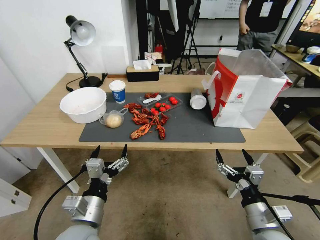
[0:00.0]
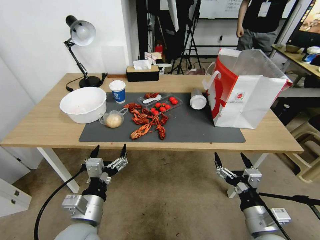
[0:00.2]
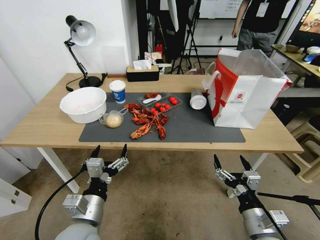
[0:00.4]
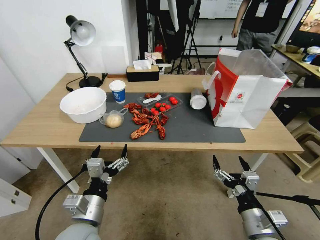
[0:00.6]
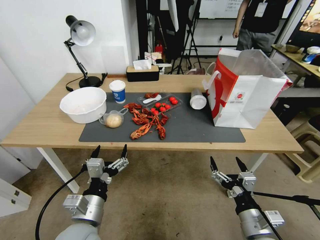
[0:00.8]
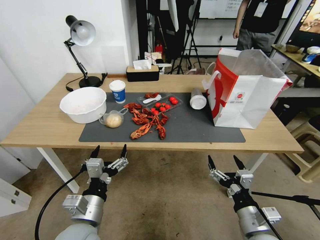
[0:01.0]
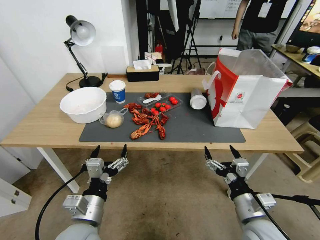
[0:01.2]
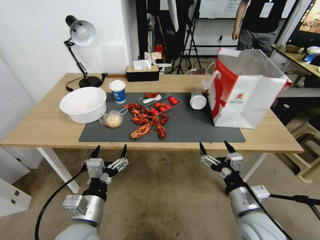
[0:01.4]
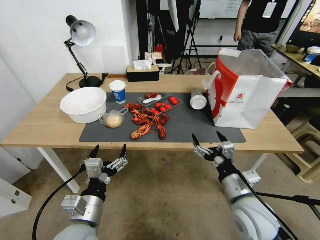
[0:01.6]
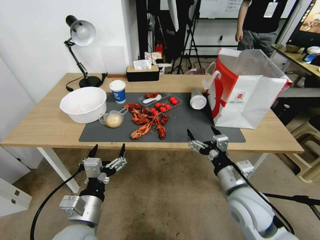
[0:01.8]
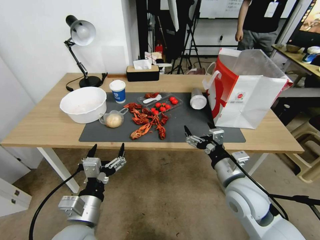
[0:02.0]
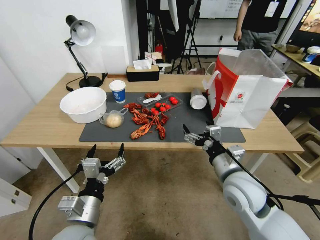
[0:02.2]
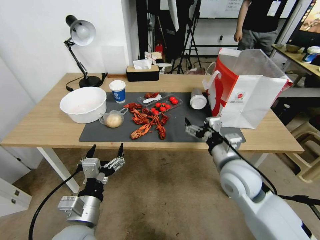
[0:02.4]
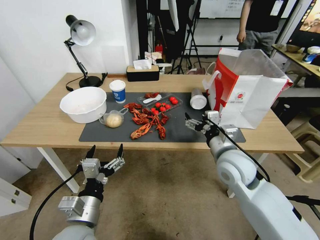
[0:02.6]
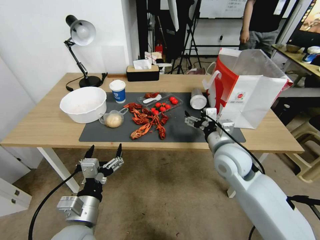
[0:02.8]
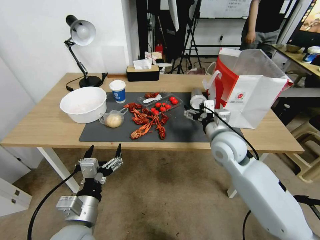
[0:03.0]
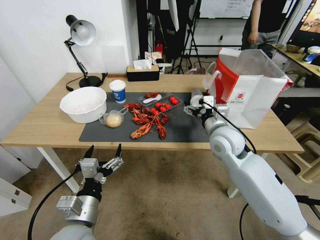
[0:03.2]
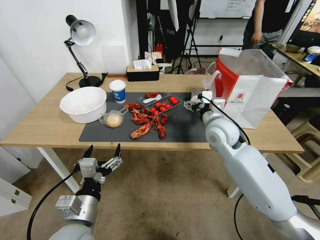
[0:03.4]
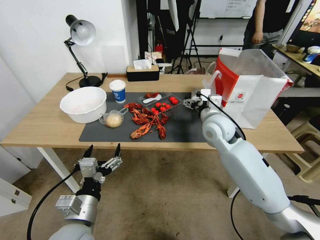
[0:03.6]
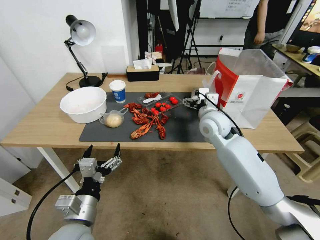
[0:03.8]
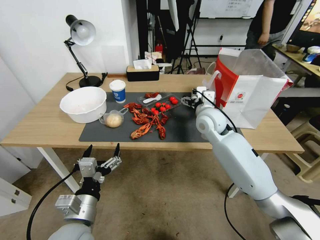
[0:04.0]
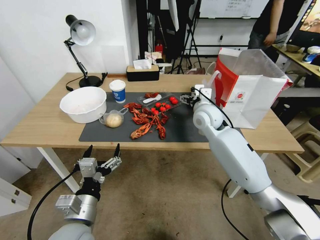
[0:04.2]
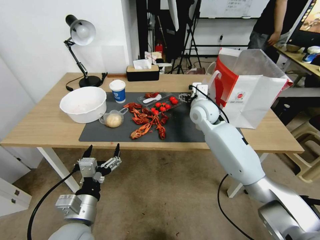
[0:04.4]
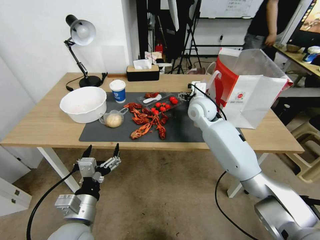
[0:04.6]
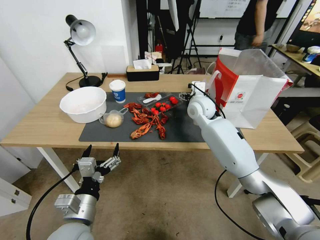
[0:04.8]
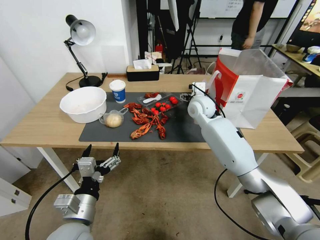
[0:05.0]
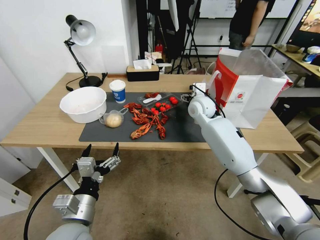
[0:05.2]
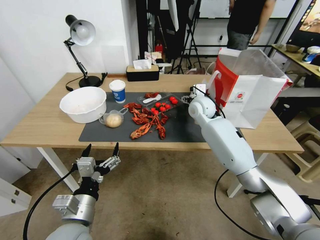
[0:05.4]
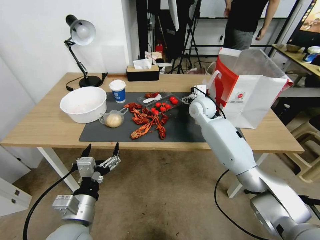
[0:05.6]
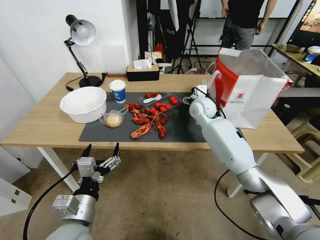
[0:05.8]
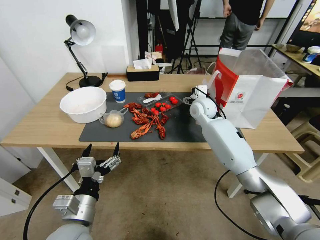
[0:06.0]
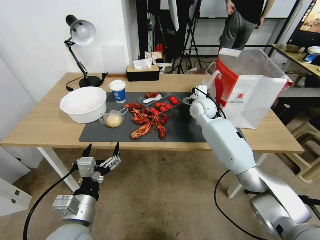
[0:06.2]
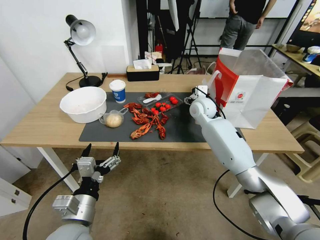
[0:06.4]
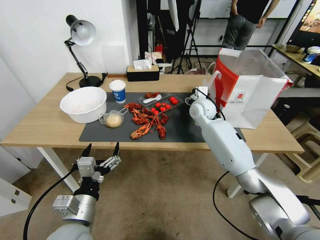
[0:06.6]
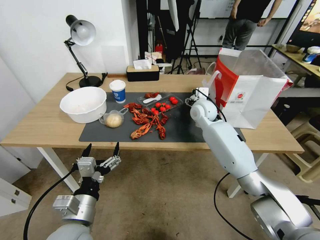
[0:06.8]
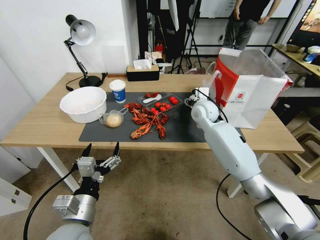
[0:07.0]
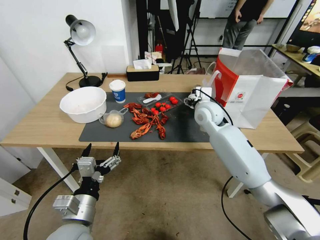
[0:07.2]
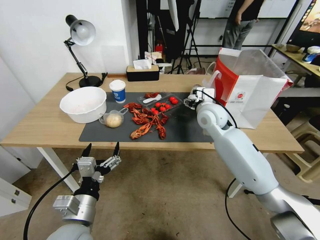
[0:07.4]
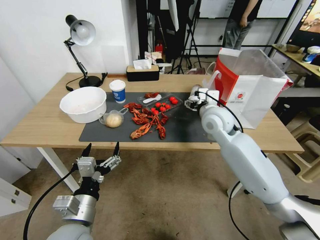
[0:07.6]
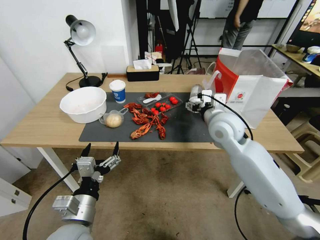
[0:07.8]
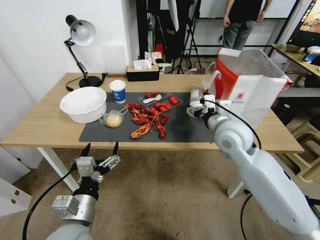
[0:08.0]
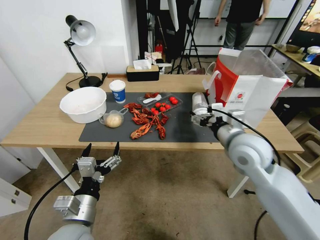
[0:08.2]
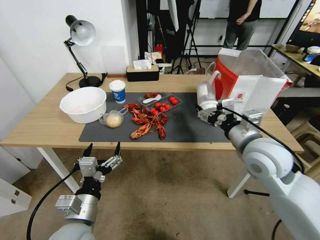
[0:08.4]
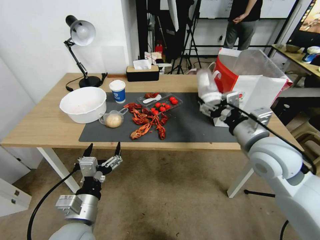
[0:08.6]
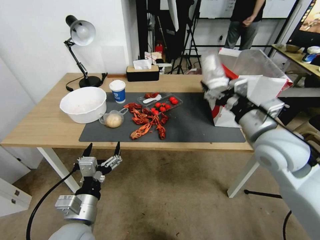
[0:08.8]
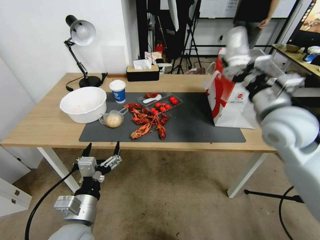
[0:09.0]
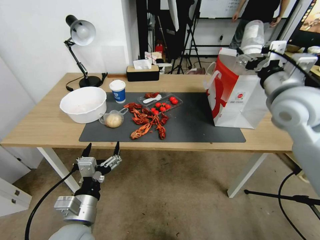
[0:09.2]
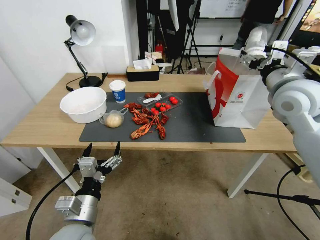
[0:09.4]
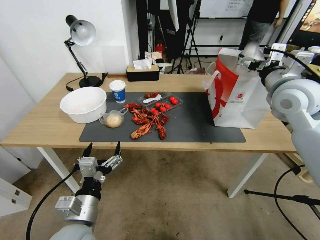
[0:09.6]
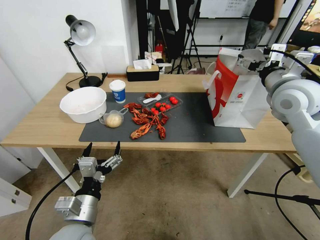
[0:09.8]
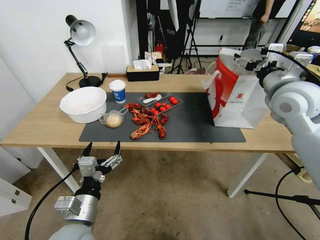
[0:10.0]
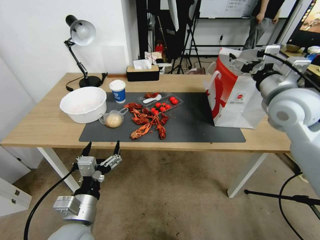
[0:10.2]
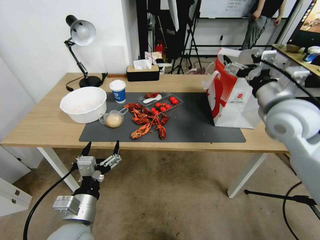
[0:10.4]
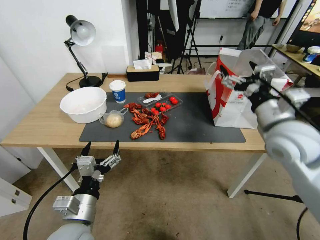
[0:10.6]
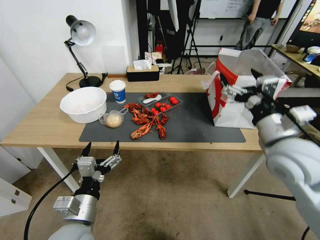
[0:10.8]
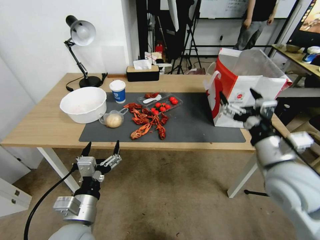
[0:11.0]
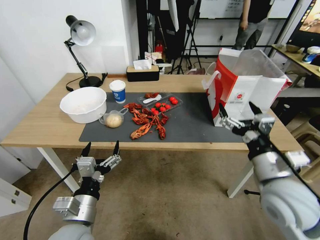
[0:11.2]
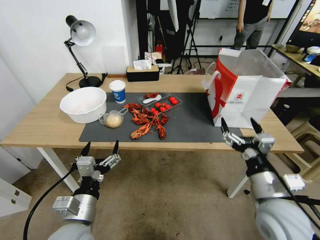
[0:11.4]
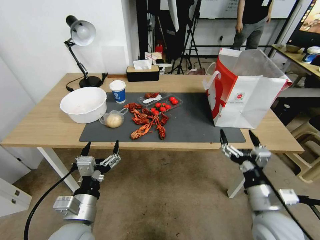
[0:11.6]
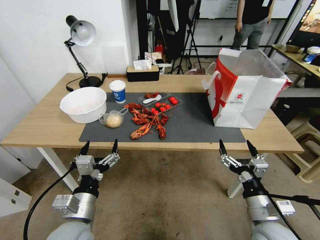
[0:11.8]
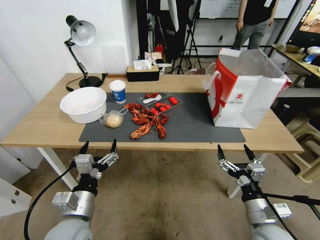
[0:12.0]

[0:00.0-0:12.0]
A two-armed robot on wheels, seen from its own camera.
0:00.0 to 0:01.6: The right gripper changes place by roughly 5 cm.
0:01.6 to 0:03.0: The right gripper shifts about 20 cm forward and upward.
0:03.0 to 0:04.4: The right gripper goes about 15 cm forward.
0:04.4 to 0:06.0: The right gripper shifts by roughly 5 cm.
0:06.0 to 0:07.6: The right gripper shifts about 10 cm backward.
0:07.6 to 0:09.0: The right gripper heads backward, to the right and upward, covering some 15 cm.
0:10.4 to 0:12.0: The right gripper travels downward and backward by some 30 cm.

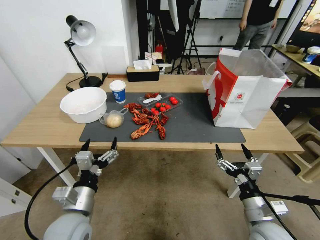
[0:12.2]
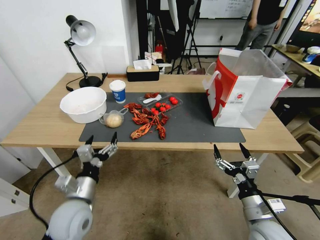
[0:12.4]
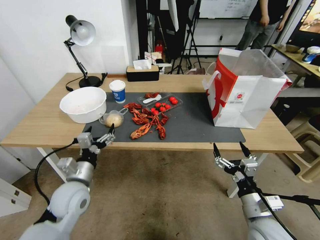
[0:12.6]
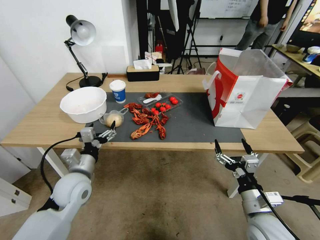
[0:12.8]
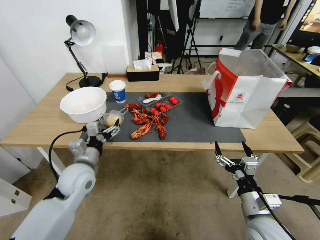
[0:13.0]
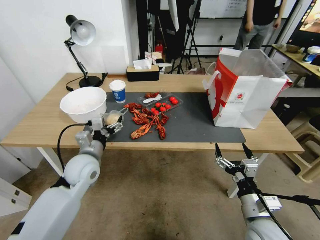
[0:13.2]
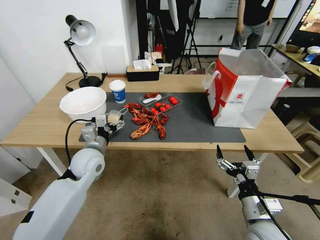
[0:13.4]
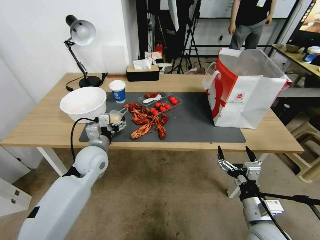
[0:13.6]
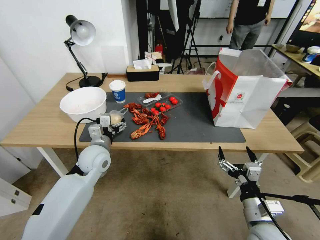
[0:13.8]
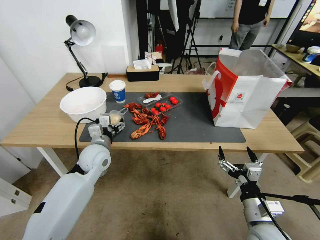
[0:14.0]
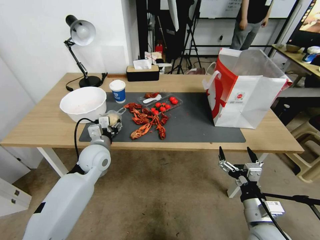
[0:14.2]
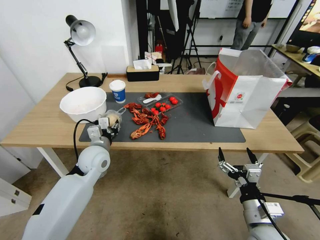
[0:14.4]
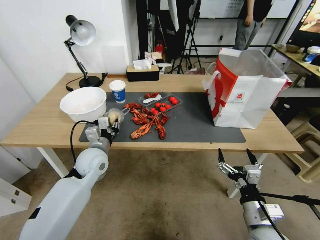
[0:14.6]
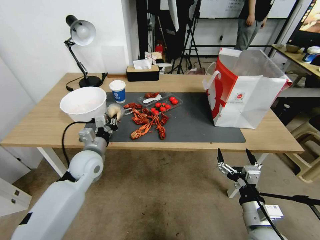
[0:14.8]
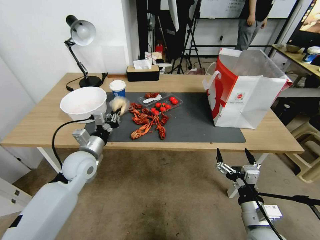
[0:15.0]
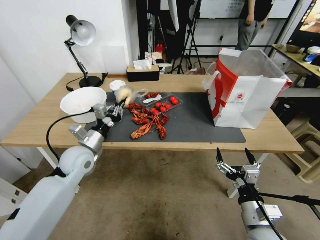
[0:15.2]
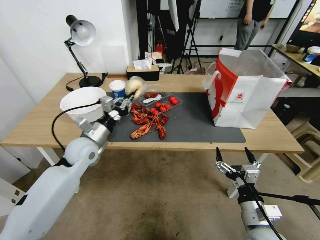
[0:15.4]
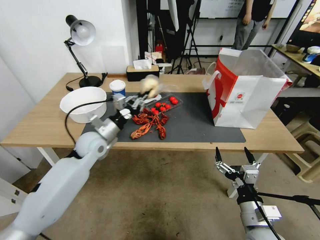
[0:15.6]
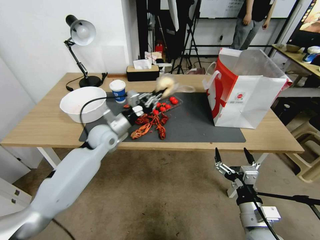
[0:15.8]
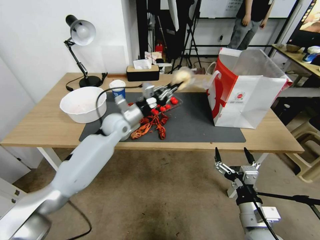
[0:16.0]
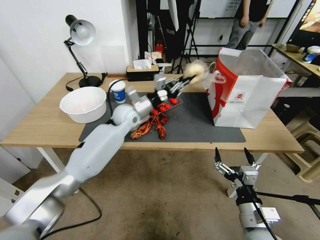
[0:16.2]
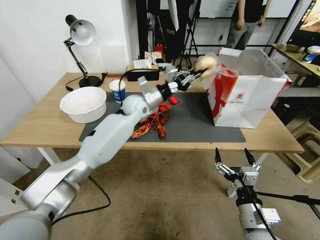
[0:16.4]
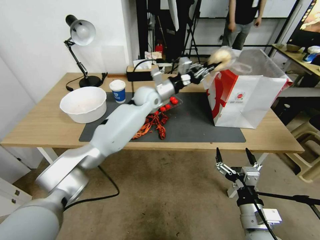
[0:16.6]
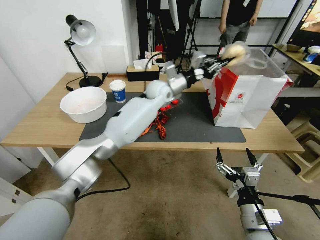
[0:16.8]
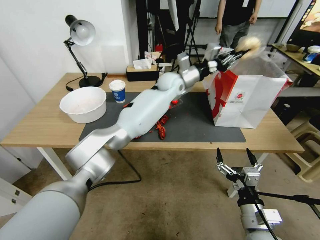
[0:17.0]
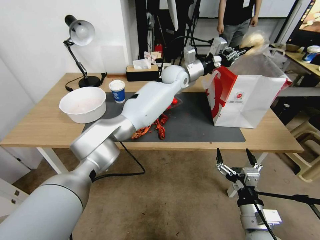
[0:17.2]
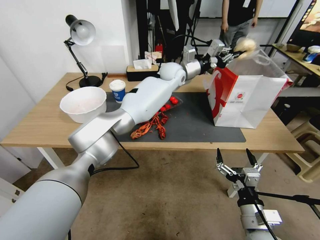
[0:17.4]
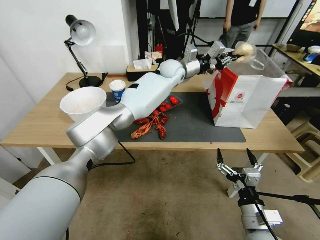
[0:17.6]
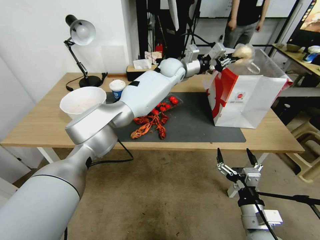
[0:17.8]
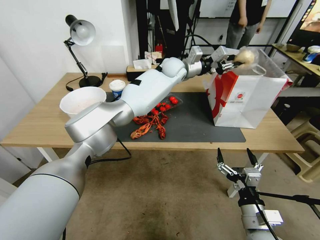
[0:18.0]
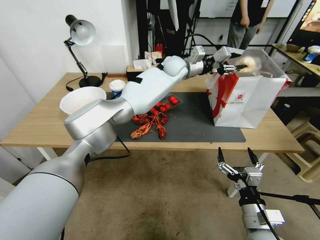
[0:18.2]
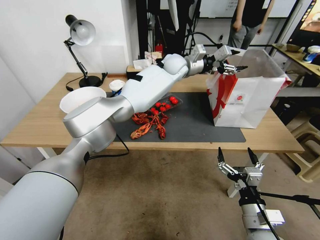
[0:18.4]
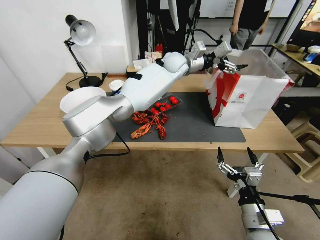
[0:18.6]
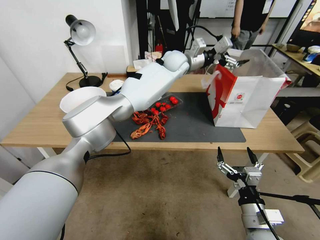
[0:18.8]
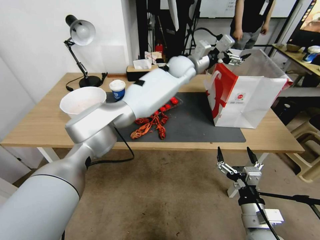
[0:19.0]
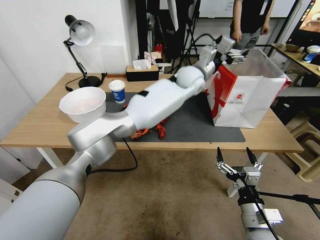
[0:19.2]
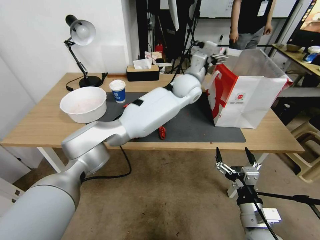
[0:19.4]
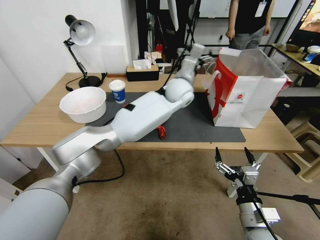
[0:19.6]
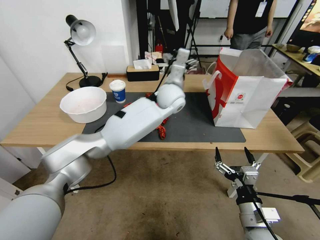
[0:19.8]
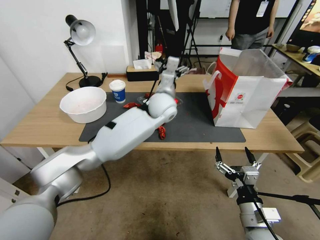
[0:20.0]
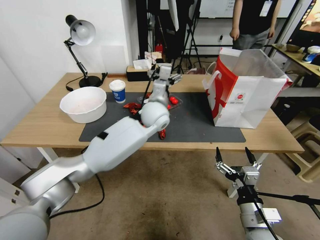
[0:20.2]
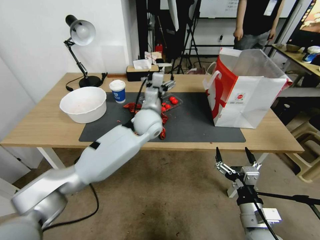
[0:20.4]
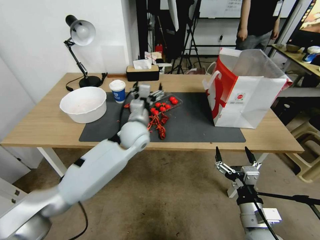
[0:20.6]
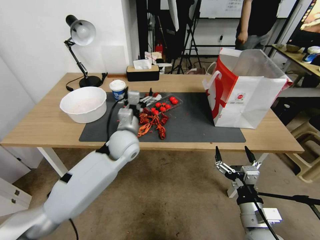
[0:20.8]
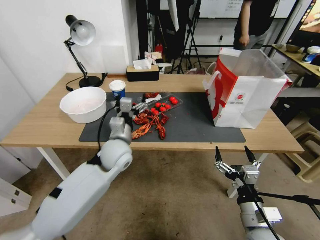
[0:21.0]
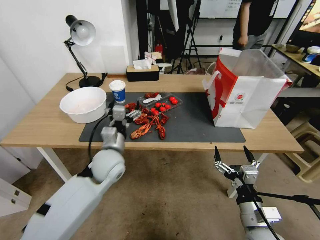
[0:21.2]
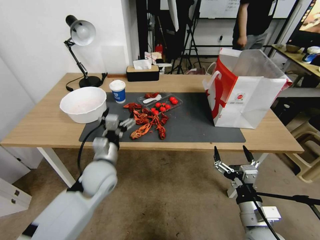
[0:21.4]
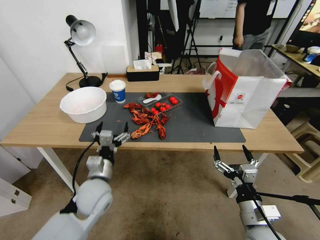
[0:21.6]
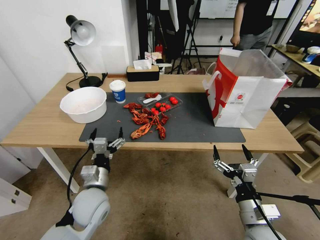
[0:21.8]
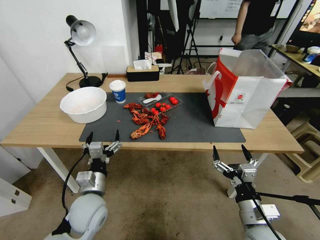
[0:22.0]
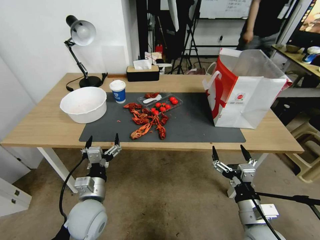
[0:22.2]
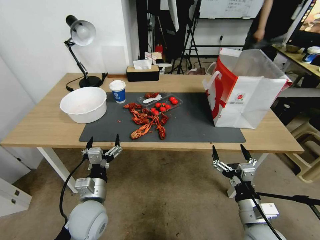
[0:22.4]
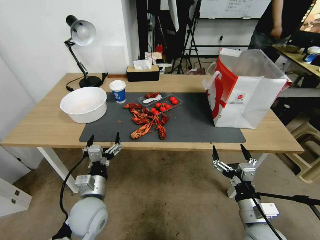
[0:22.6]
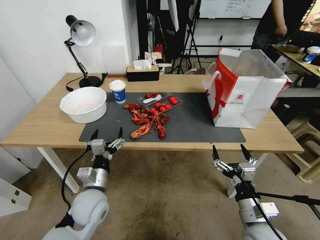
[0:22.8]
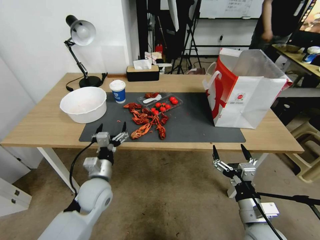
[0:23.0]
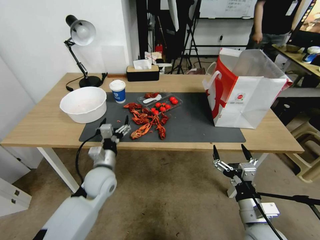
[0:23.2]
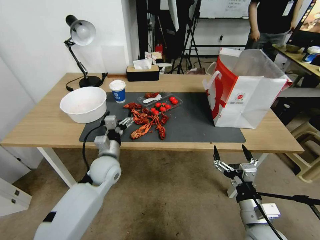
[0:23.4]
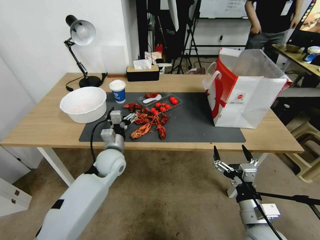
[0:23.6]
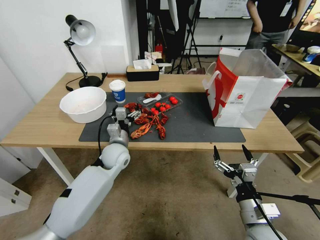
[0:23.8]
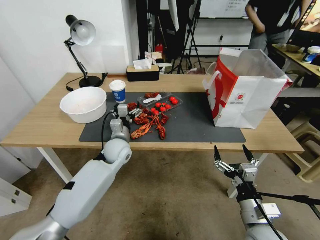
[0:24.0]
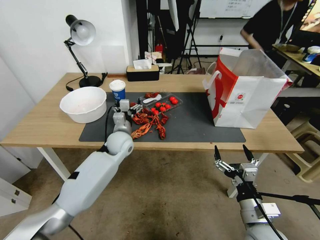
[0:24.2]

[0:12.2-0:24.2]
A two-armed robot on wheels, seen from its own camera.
0:12.2 to 0:13.8: The left gripper goes roughly 20 cm forward.
0:13.8 to 0:15.2: The left gripper closes up.
0:15.2 to 0:16.6: The left gripper heads forward, to the right and upward, covering roughly 30 cm.
0:16.6 to 0:18.2: The left gripper is displaced to the right, forward and upward by about 15 cm, and opens up.
0:18.2 to 0:19.8: The left gripper goes roughly 10 cm backward, and opens up.
0:19.8 to 0:21.2: The left gripper shifts approximately 30 cm to the left, backward and downward.
0:21.2 to 0:22.6: The left gripper is displaced backward and downward by approximately 15 cm.
0:22.6 to 0:24.2: The left gripper goes approximately 20 cm forward.
